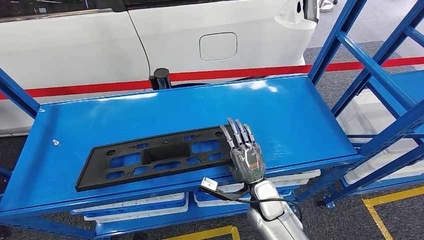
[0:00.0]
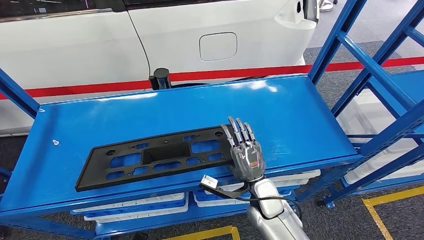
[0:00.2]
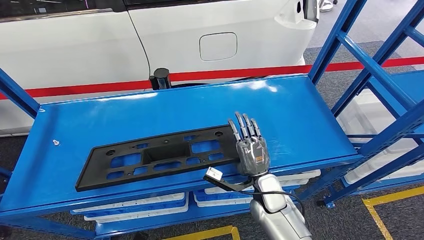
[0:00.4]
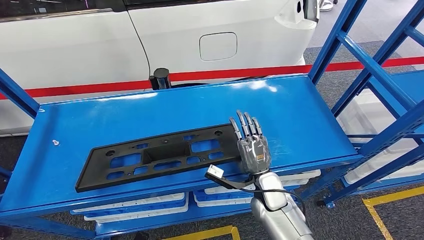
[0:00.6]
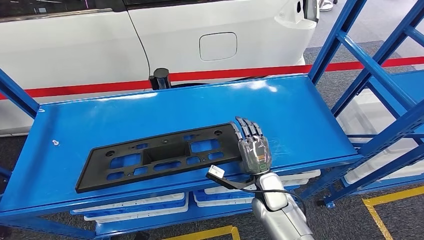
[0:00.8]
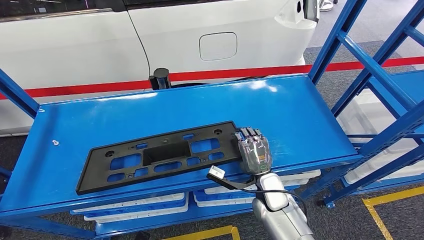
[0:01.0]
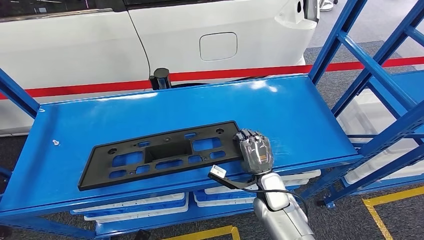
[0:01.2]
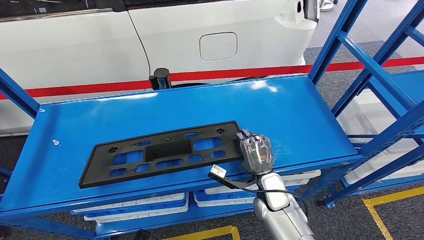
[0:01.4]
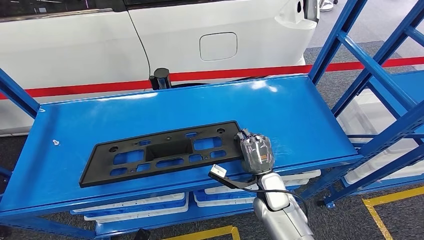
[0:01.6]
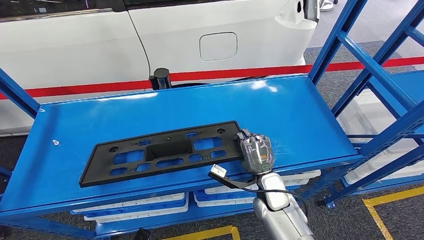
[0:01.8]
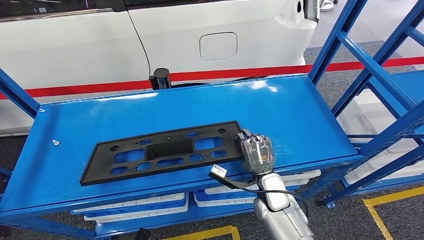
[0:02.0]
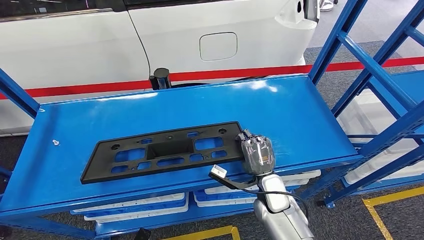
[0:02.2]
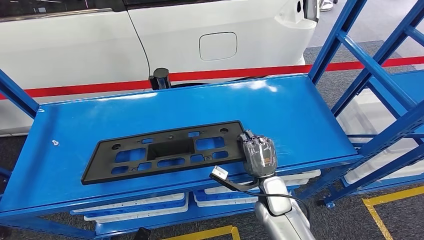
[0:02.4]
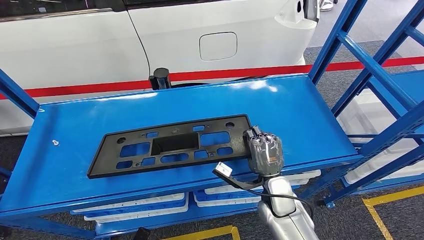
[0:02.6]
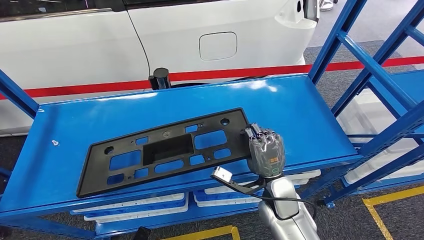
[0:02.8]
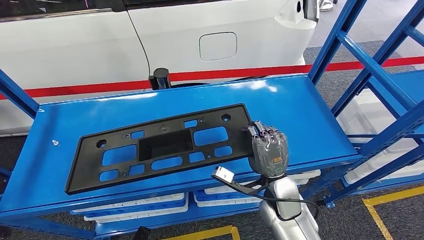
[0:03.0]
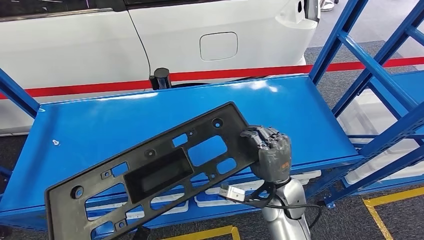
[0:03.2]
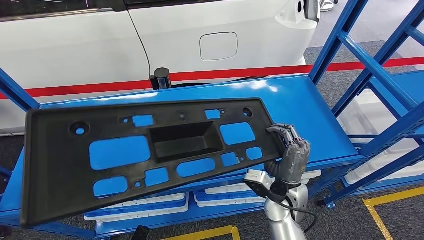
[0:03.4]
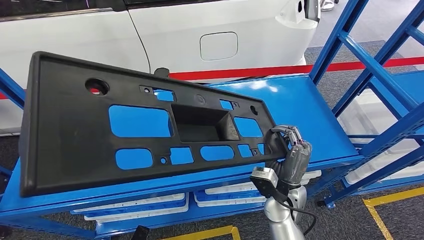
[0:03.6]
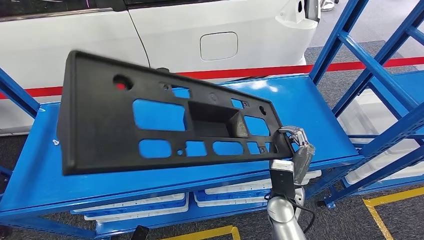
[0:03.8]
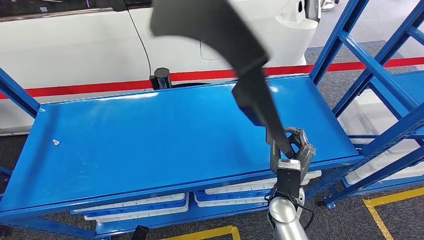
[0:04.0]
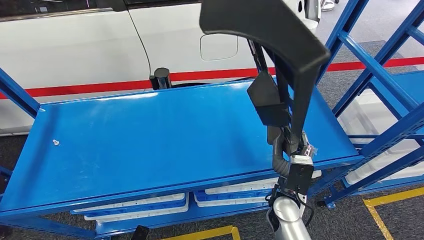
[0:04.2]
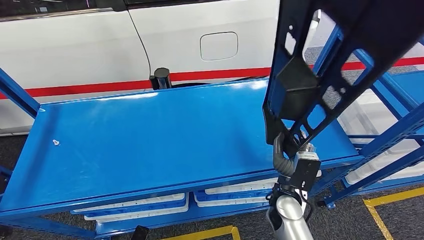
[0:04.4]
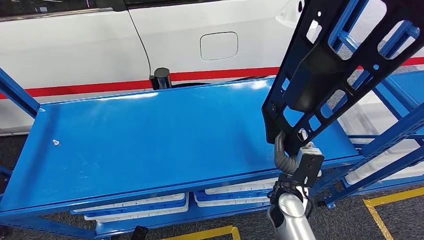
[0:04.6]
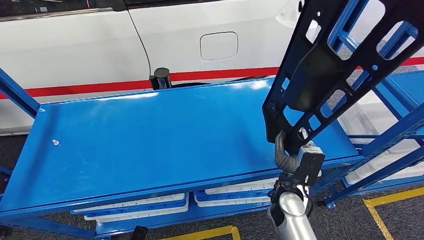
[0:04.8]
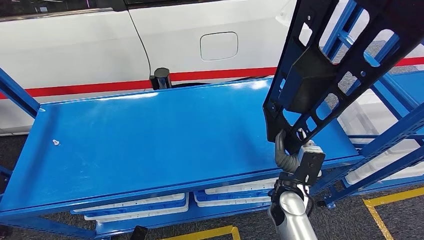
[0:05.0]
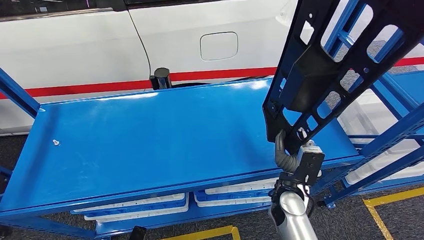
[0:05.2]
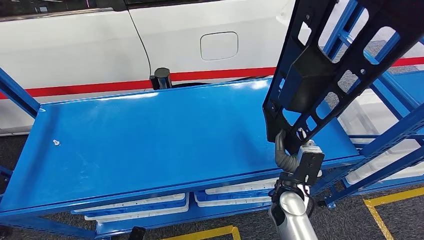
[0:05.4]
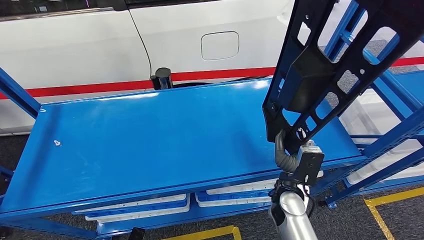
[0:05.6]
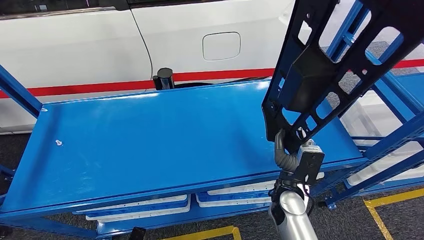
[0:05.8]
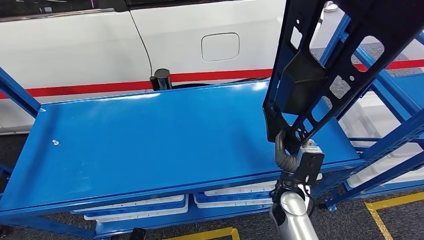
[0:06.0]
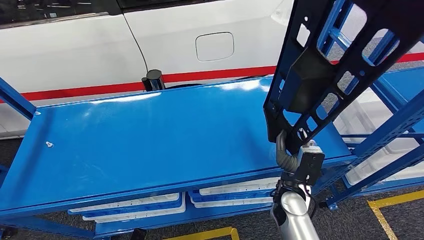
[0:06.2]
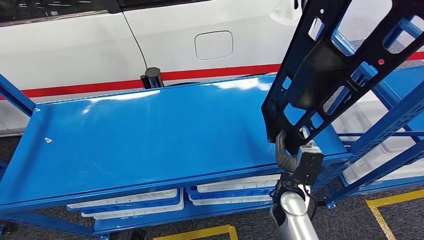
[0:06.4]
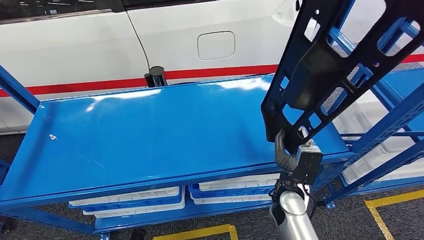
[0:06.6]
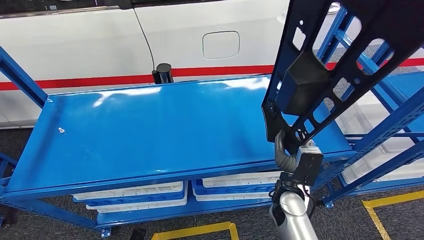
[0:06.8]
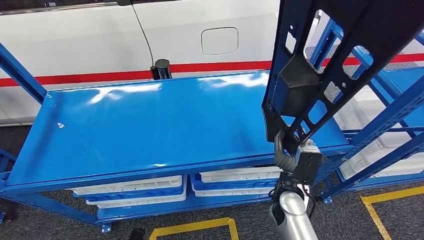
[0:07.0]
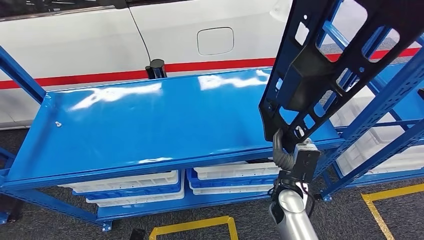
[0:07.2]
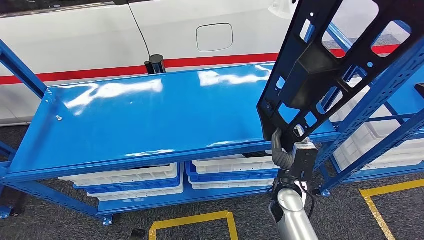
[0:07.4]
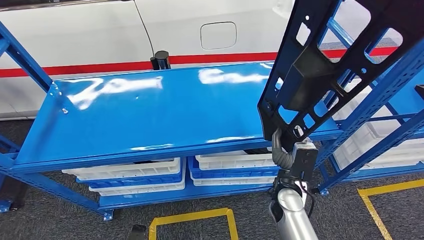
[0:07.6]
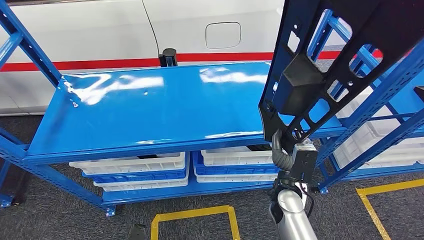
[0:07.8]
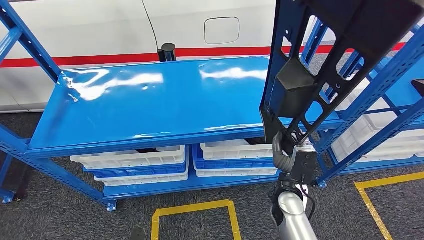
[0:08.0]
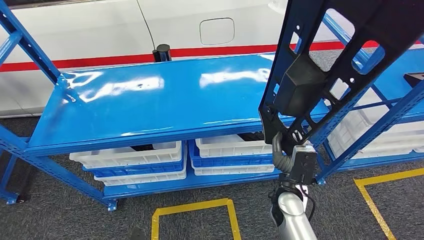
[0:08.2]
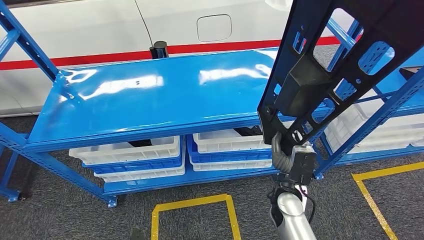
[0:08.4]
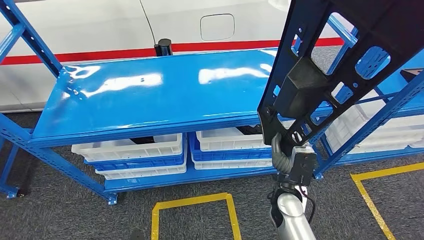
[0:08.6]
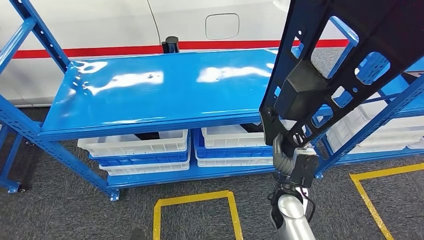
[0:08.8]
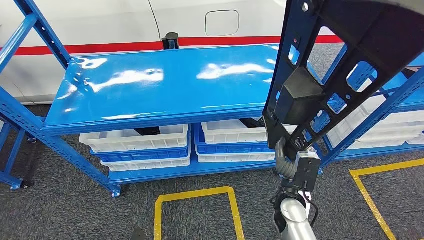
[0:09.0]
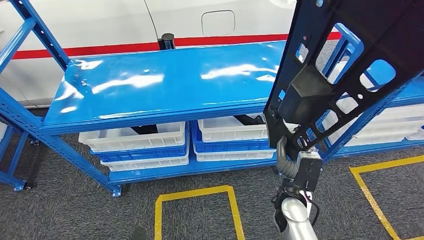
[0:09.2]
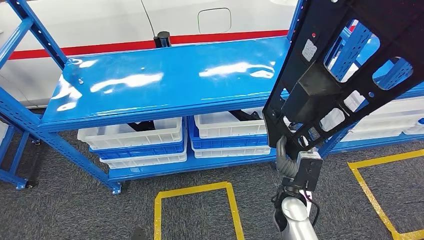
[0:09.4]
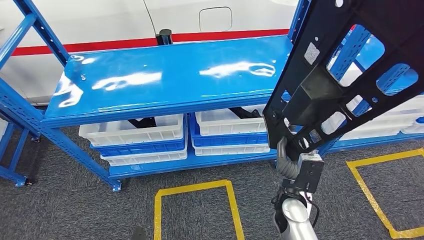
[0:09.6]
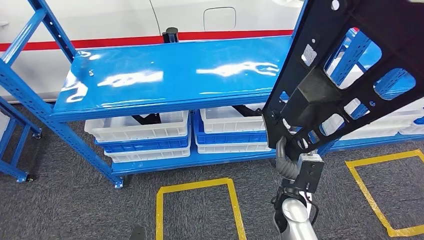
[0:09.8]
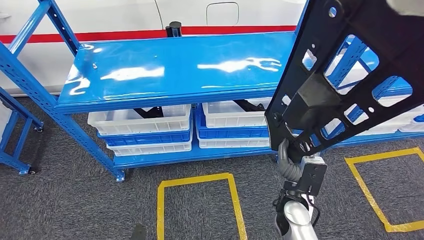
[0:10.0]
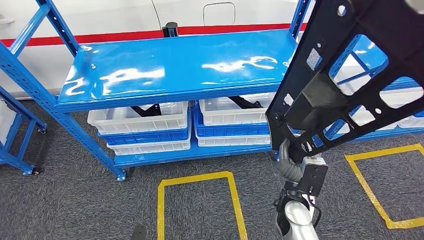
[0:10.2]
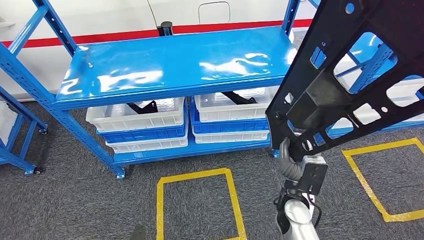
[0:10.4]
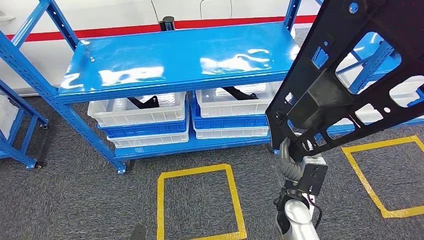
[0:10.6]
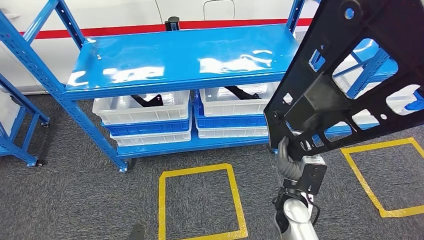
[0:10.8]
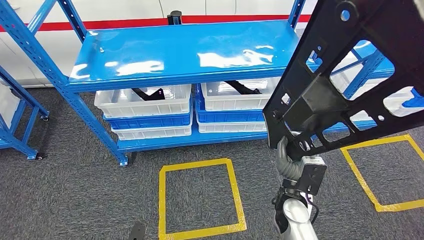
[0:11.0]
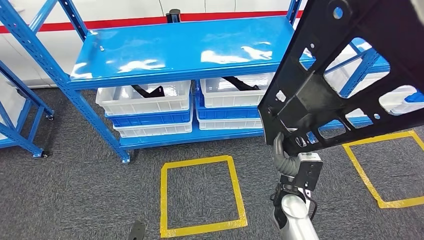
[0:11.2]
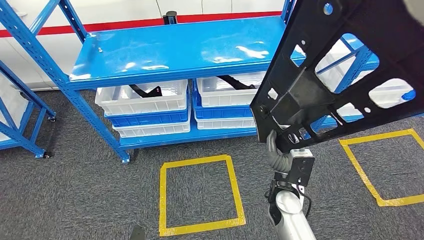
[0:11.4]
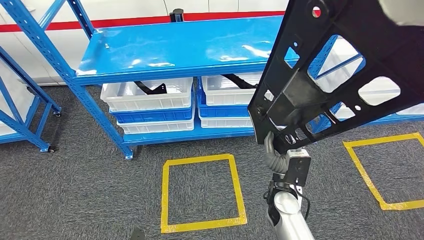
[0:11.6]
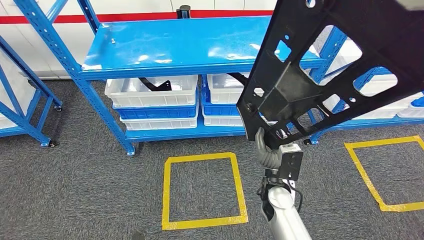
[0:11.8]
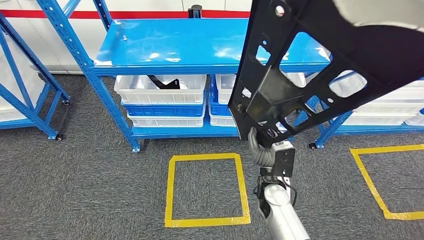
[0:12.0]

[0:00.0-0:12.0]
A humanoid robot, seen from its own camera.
Step, 0:00.0 to 0:04.4: Pick up the large material from the shelf.
0:00.0 to 0:01.6: The hands stay close to where they were, moving slightly.
0:01.6 to 0:03.0: The right hand is displaced upward by roughly 5 cm.
0:04.4 to 0:06.0: The hands stay close to where they were, moving slightly.

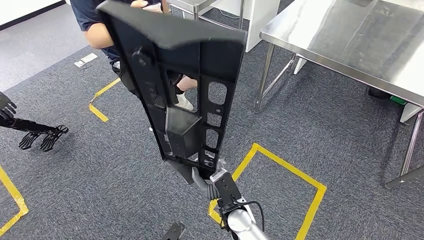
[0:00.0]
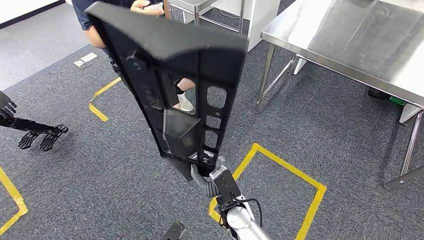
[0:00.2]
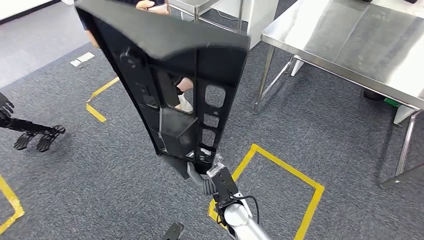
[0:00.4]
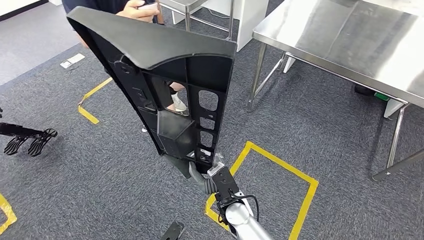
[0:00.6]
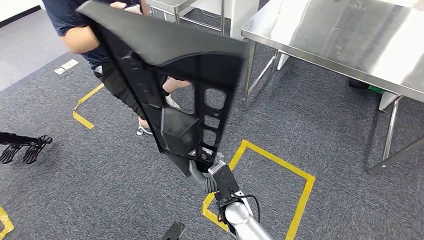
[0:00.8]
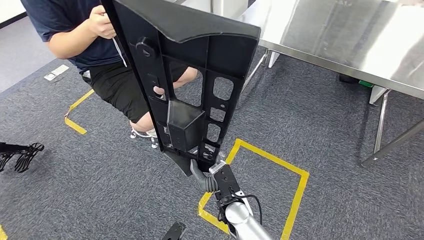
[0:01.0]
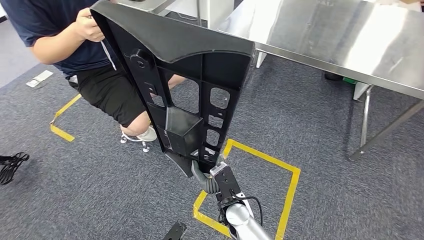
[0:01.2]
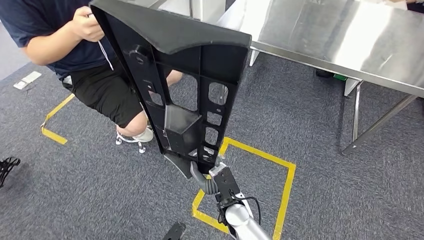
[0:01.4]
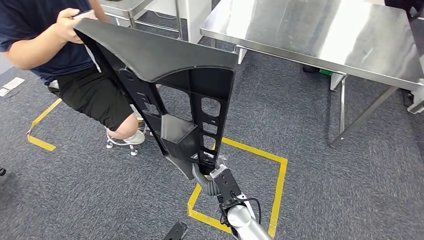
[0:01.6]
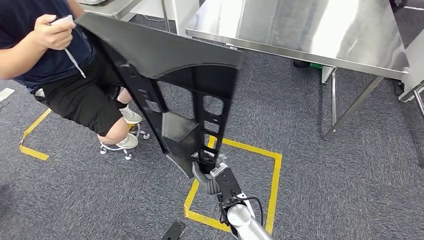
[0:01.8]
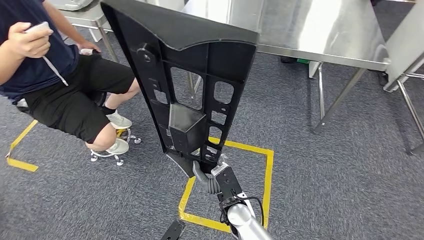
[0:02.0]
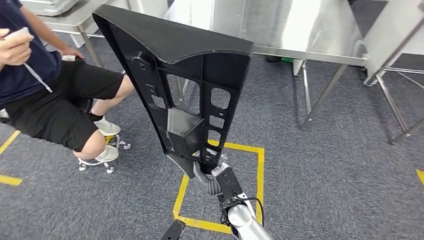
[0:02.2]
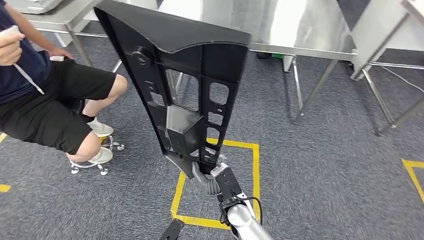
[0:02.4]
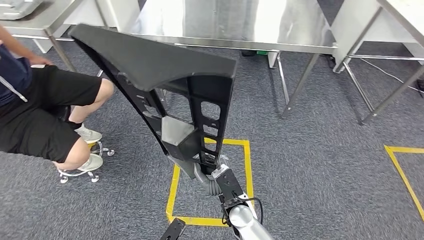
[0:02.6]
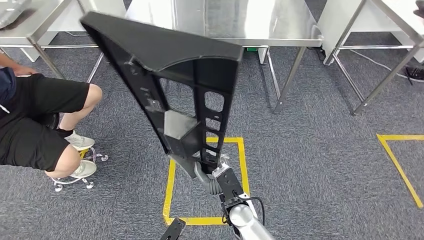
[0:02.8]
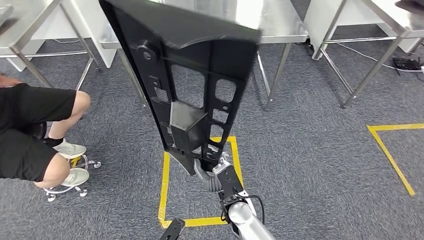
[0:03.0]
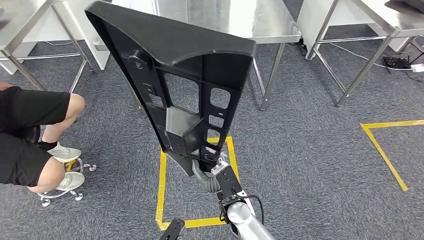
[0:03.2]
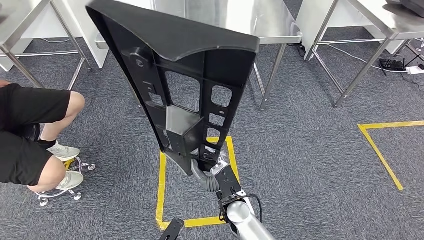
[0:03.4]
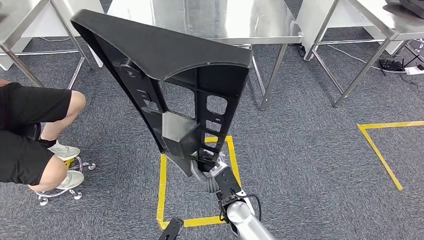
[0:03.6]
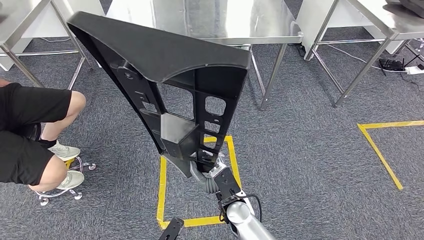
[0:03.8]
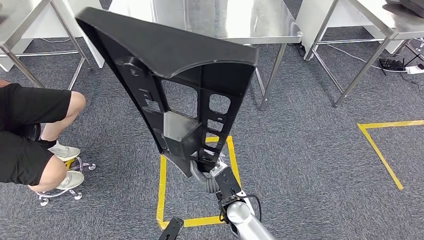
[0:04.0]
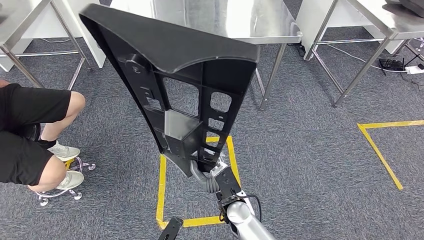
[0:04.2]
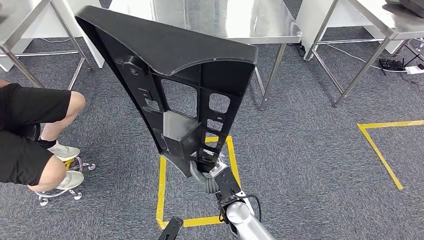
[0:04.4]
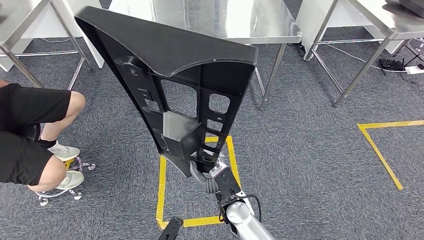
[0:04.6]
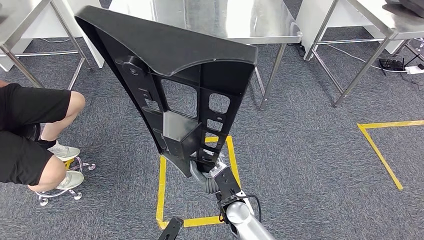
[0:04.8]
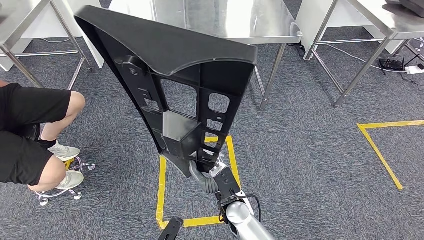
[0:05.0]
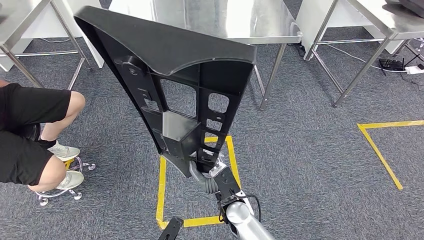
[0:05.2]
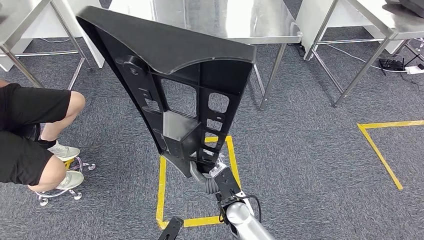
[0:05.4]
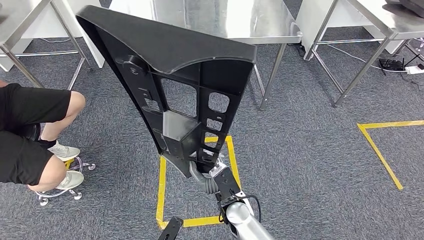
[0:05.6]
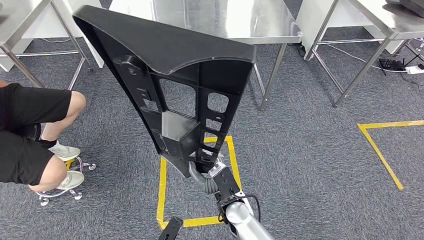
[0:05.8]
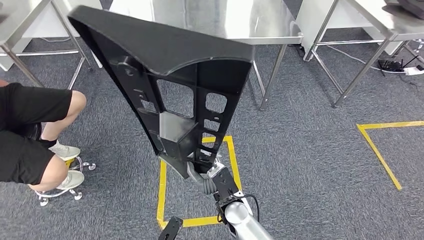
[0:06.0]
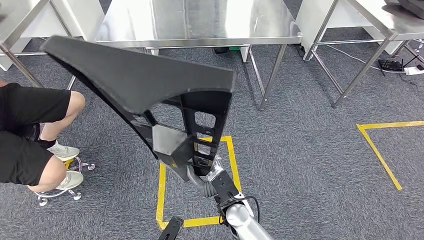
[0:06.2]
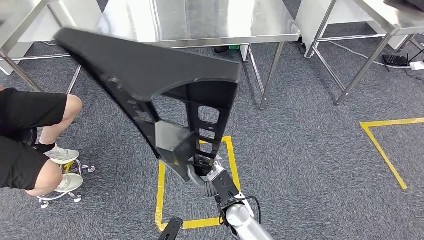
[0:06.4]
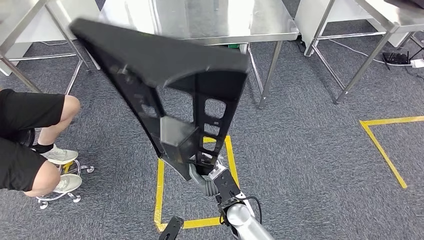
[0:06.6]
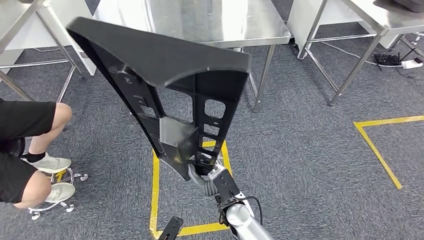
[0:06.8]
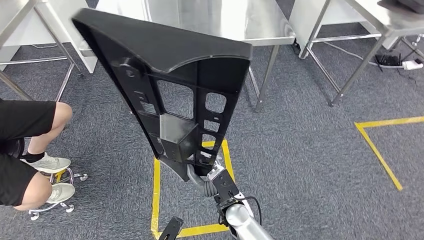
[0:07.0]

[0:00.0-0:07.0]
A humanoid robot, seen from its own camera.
0:04.2 to 0:05.6: The two hands keep their place.
